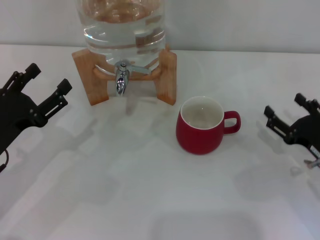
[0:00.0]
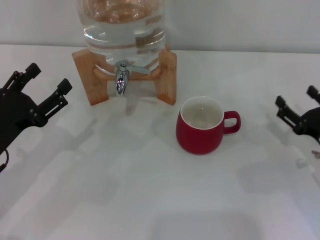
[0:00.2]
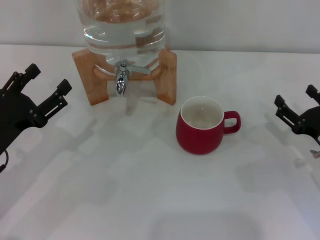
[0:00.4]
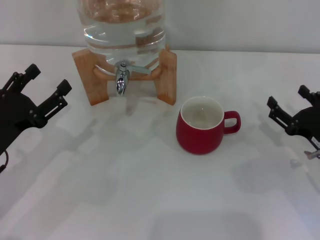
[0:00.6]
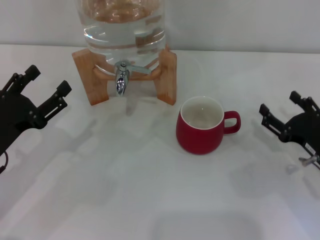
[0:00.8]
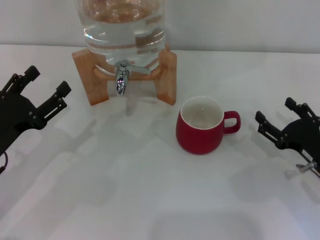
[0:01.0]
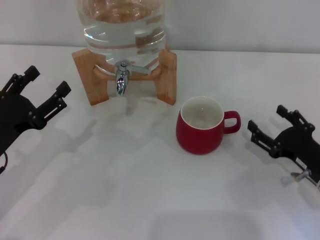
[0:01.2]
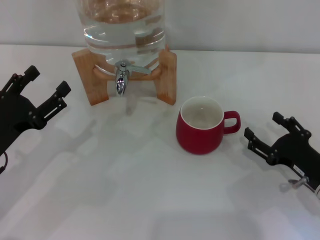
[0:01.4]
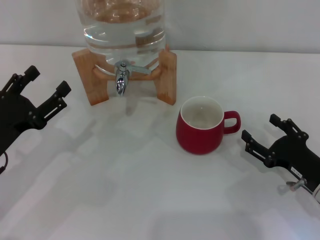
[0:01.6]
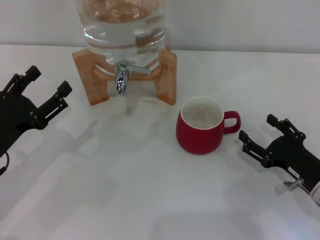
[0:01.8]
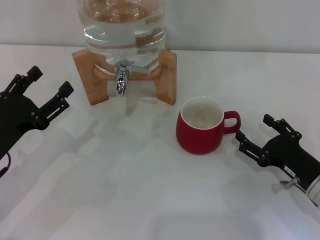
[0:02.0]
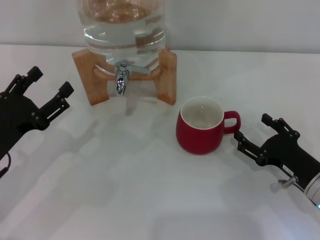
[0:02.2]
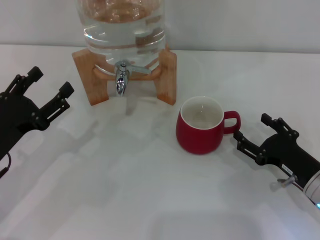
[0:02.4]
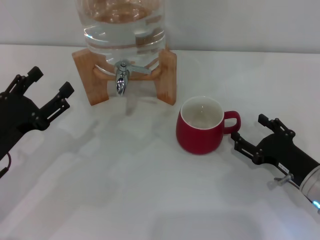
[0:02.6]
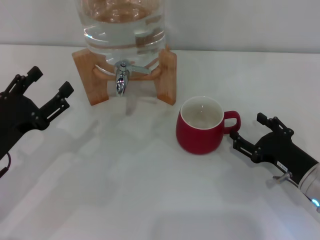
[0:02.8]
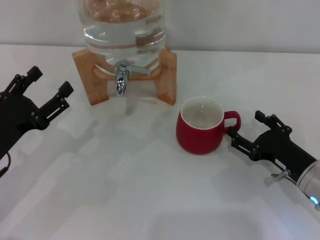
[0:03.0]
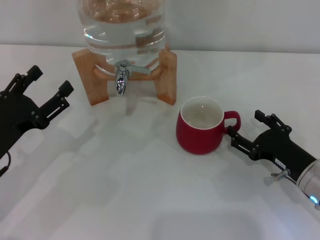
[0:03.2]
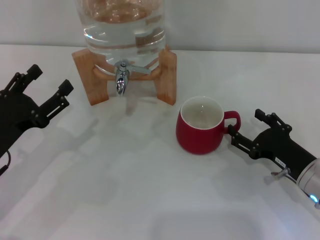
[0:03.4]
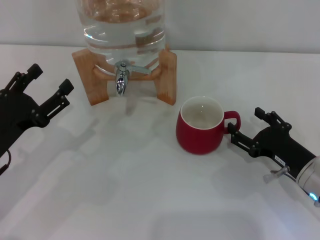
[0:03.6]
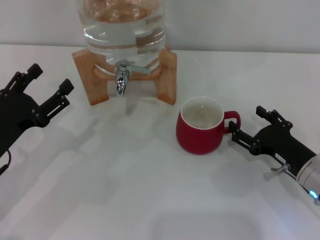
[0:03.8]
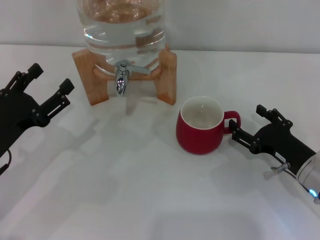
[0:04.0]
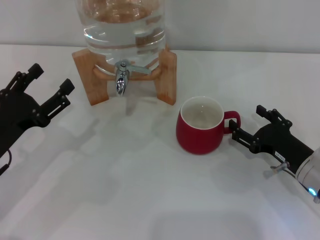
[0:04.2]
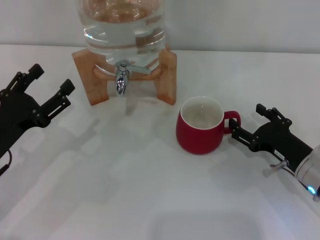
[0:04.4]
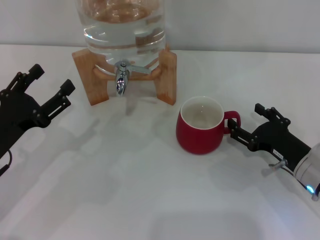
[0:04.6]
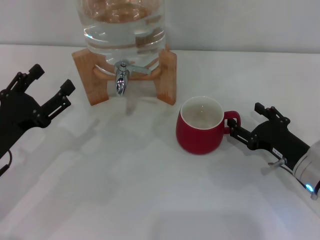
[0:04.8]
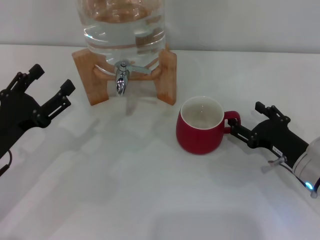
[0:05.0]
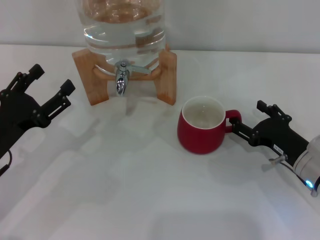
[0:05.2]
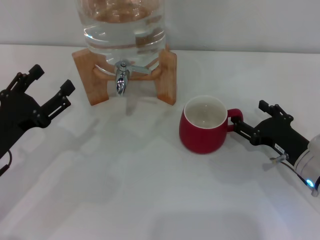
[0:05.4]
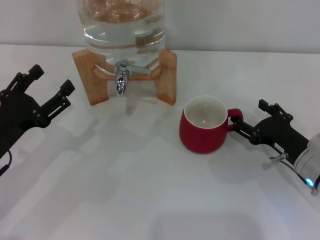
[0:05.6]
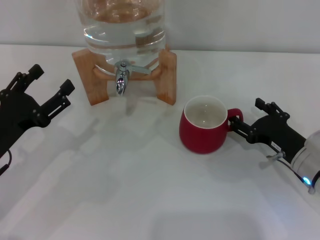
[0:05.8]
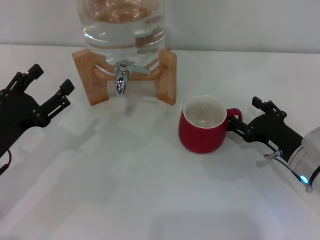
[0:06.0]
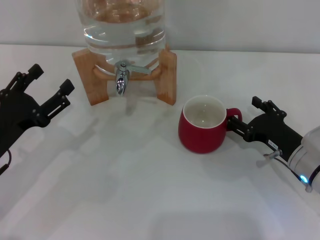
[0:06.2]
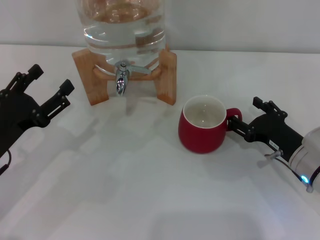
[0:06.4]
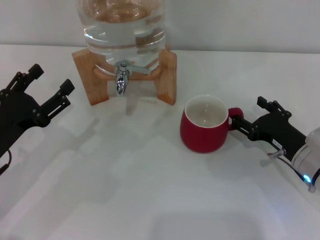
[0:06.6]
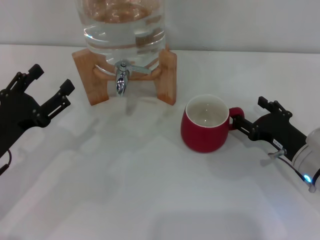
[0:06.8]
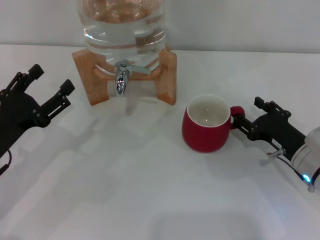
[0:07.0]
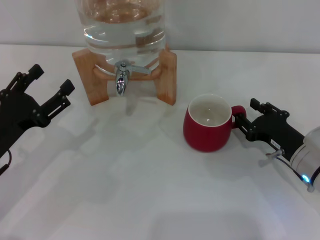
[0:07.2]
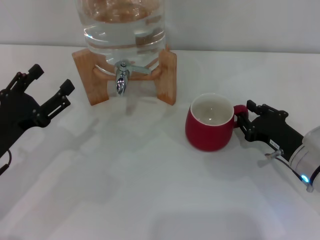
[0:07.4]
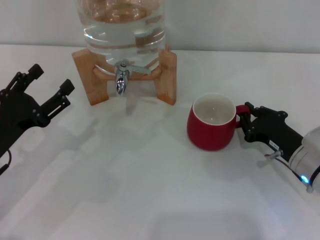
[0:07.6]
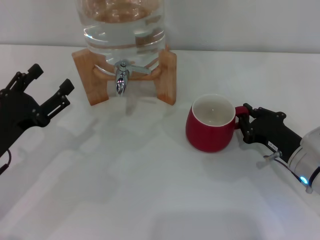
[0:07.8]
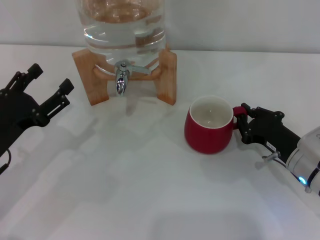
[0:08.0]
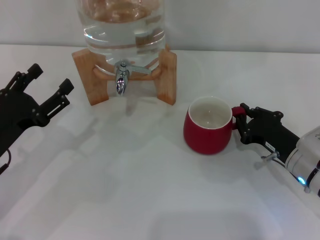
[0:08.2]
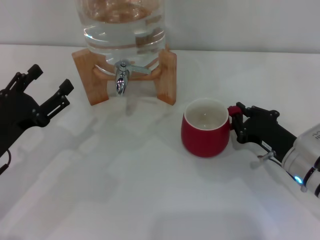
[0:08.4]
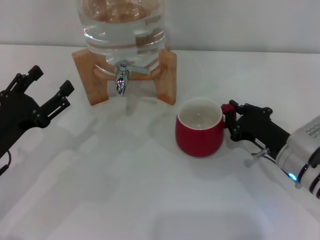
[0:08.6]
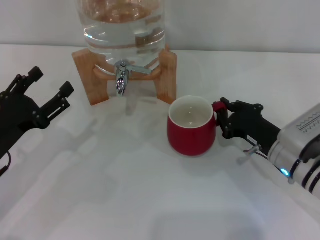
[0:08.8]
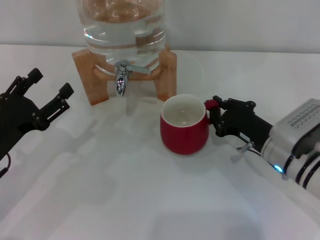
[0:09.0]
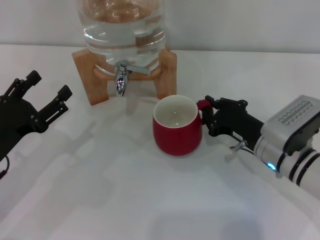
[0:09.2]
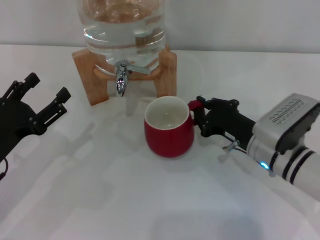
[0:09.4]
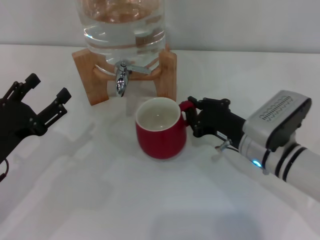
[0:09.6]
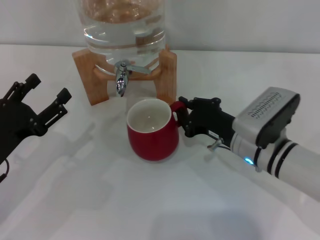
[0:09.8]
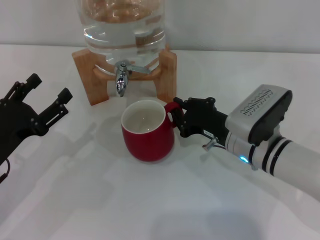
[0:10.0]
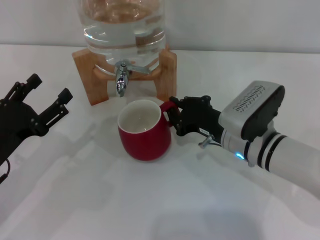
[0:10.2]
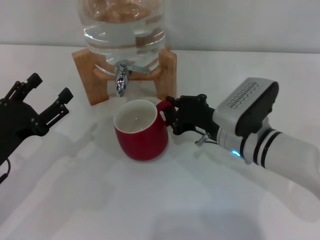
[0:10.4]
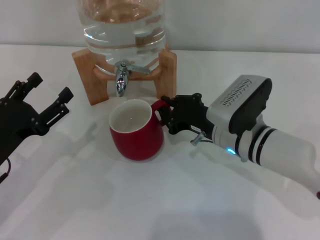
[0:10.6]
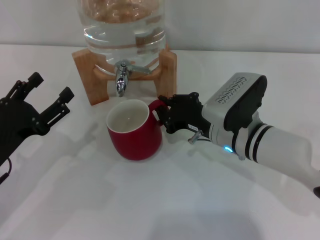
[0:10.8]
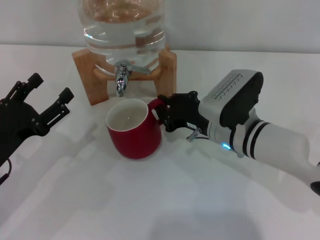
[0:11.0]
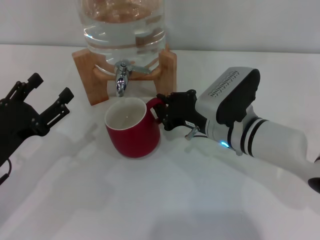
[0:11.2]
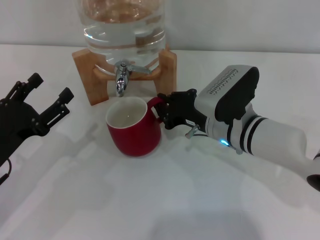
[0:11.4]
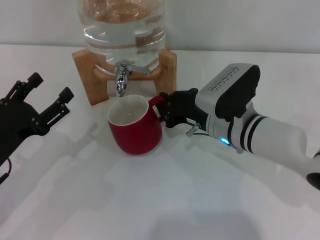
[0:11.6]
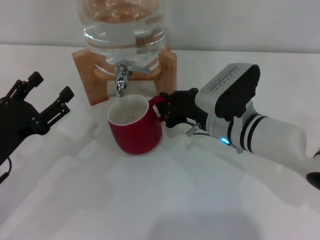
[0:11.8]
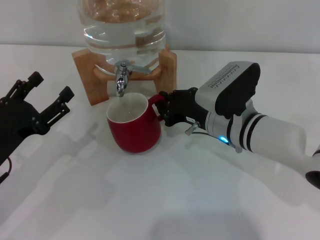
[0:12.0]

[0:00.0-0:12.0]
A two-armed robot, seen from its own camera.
Task of the whole recording: the right gripper pick up the red cup and place it horizontally under the faucet, the left gripper turn on the faucet to fill the cup, and then turn off the faucet.
0:00.0 to 0:03.0: The grippers move only a little.
0:03.0 to 0:04.4: Both grippers stay about where they are.
0:04.4 to 0:06.0: There are only small adjustments of the grippers.
0:06.0 to 0:07.6: The right gripper closes its fingers.
0:07.6 to 0:09.0: There are only small adjustments of the grippers.
0:09.0 to 0:10.4: The right gripper moves to the left, roughly 5 cm.
0:10.4 to 0:12.0: The grippers move only a little.

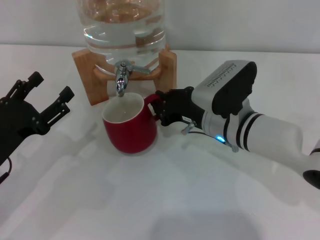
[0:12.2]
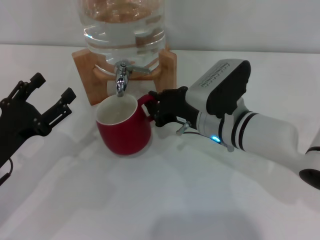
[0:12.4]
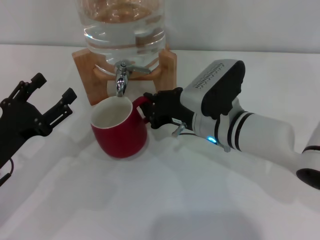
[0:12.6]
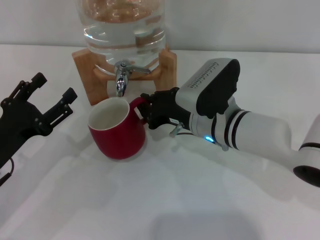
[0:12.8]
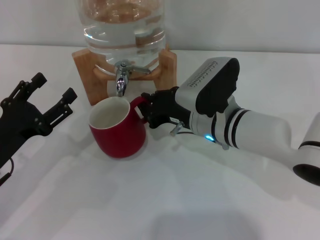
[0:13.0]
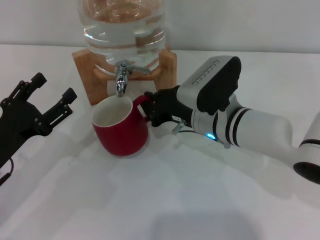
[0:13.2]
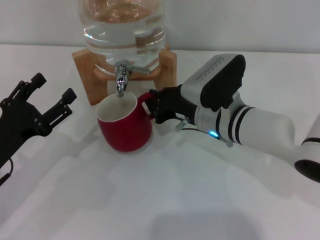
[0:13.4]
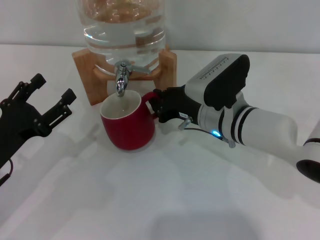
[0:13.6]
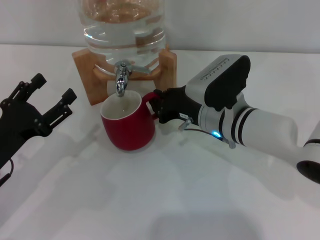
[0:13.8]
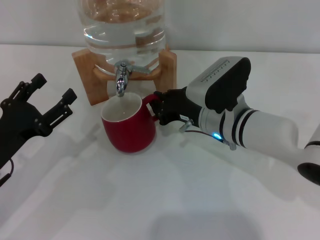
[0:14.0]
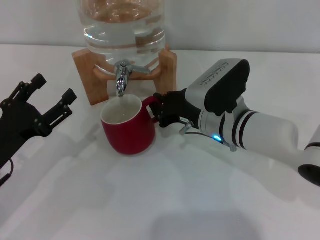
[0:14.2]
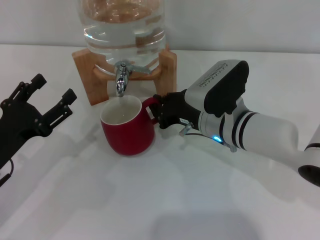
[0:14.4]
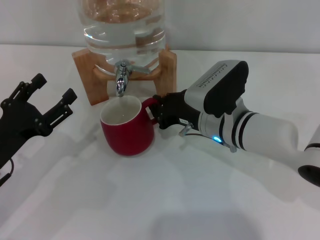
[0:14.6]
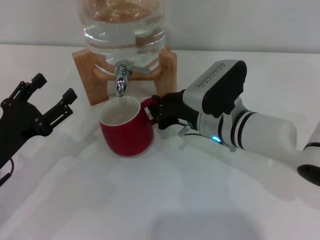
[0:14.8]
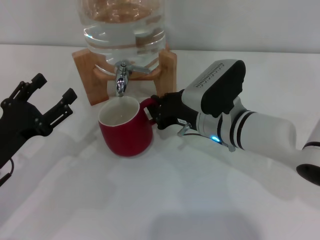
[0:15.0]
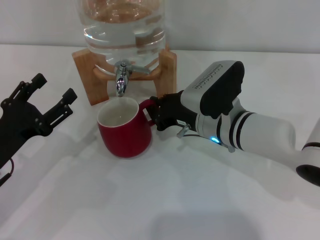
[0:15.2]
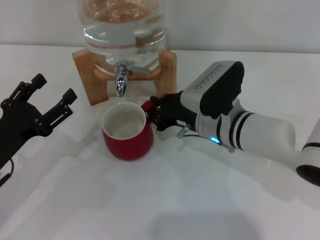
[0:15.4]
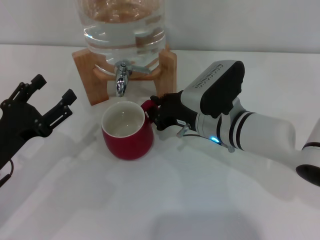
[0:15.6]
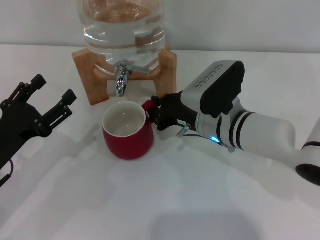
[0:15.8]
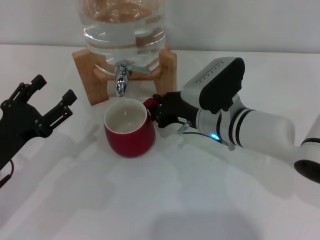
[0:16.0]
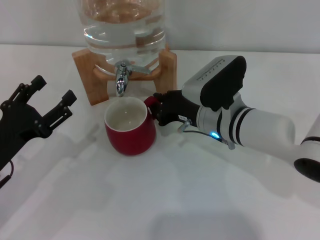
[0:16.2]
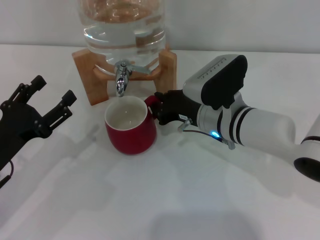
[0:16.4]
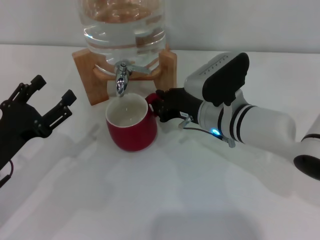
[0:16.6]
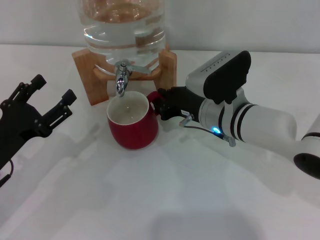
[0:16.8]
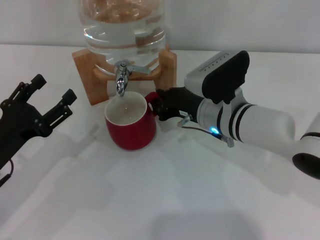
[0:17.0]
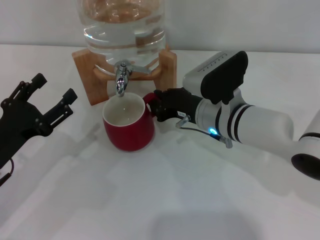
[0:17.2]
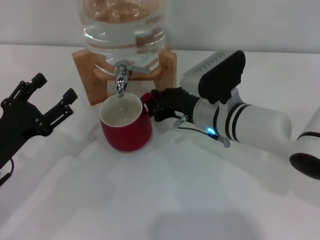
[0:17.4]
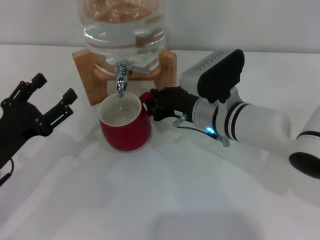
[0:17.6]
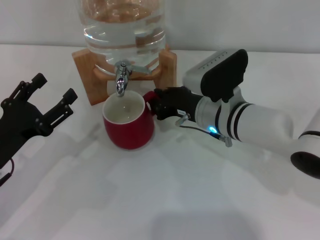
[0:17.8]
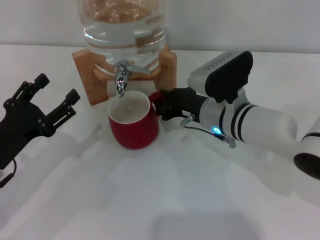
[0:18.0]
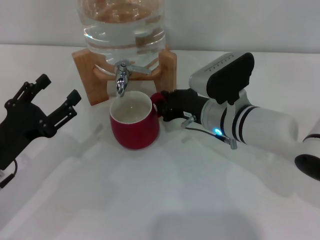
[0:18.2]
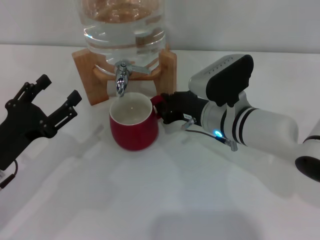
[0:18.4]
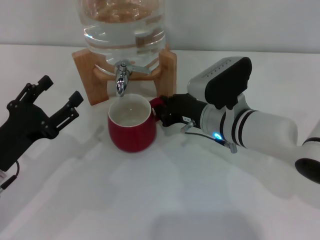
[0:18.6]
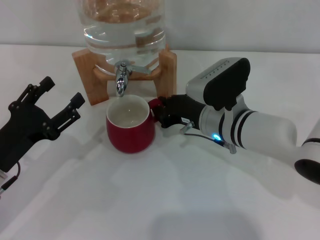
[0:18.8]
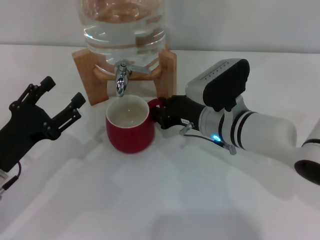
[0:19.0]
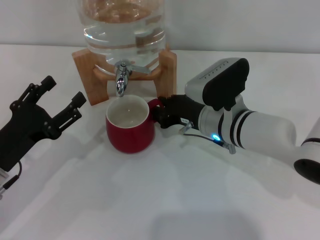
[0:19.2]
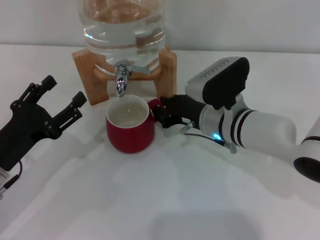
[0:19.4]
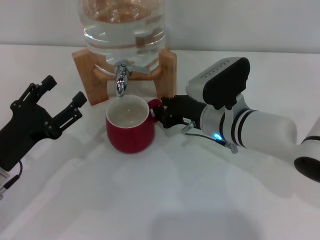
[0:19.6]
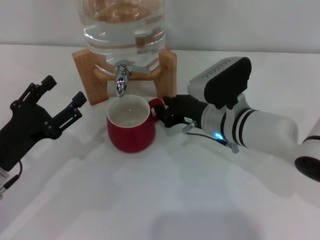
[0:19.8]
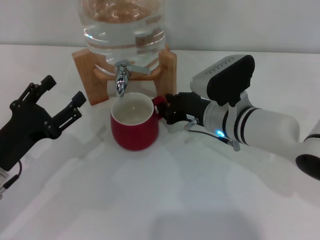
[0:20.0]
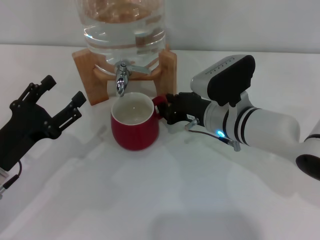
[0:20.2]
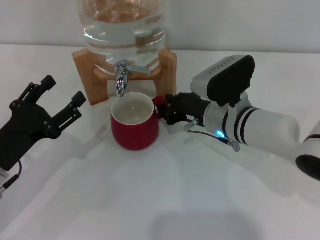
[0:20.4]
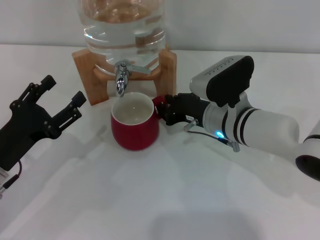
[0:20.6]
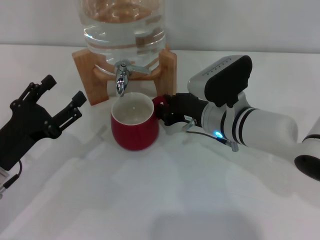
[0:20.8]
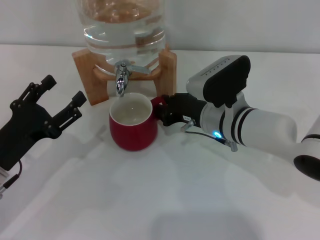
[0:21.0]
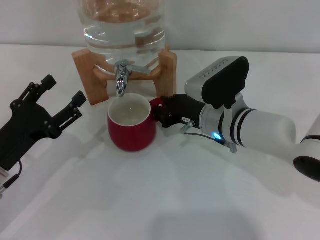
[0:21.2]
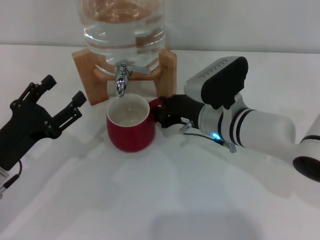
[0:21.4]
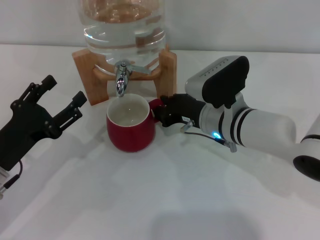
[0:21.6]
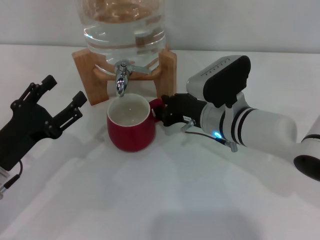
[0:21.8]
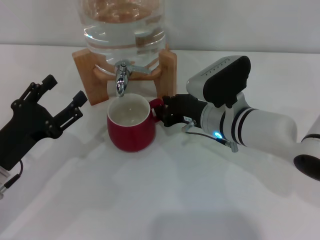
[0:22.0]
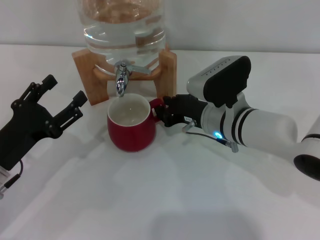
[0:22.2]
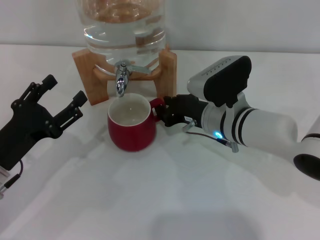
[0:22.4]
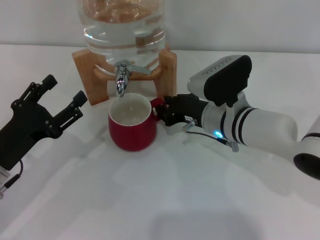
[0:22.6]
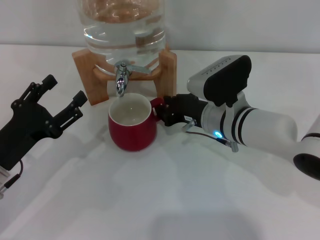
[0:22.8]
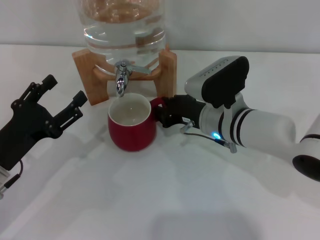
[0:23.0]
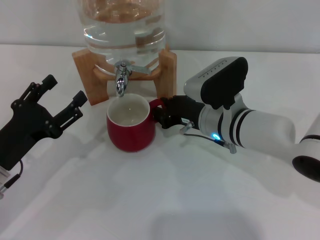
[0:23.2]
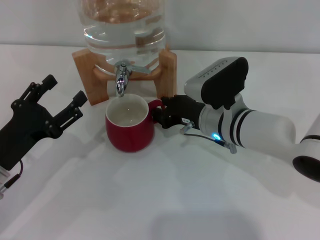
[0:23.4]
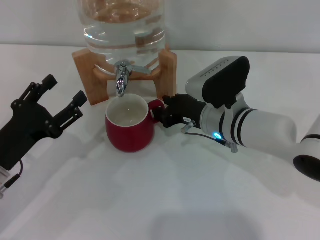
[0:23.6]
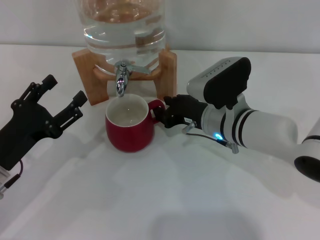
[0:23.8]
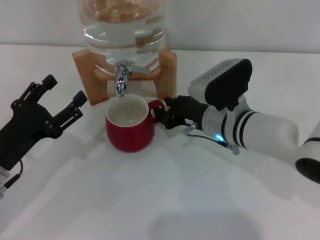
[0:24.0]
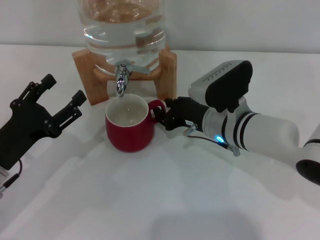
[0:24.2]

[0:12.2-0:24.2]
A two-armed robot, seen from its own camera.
Task of the whole recording: the right gripper pick up the red cup and place it horizontally under the faucet, the left gripper turn on the faucet to fill the cup, and then turn off the faucet.
0:12.2 to 0:13.8: The grippers stay close to where they were, moving slightly.
0:13.8 to 0:15.2: The two grippers keep their place.
0:15.2 to 0:16.6: There are only small adjustments of the grippers.
0:16.6 to 0:21.2: Both grippers stay put.
0:21.2 to 0:24.2: Both grippers stay about where they are.
